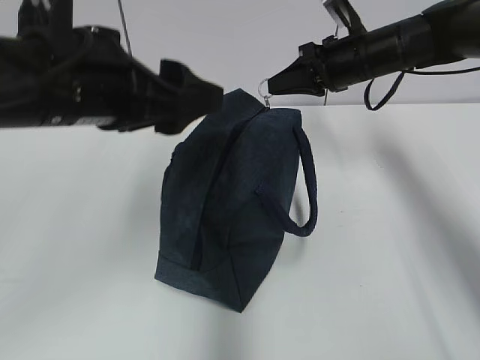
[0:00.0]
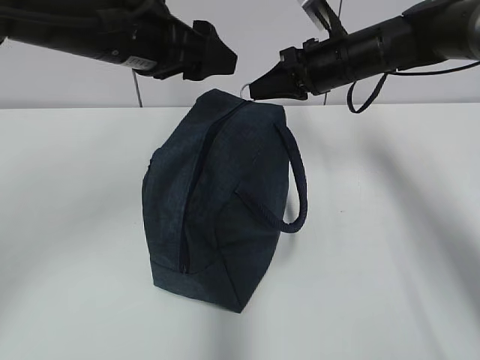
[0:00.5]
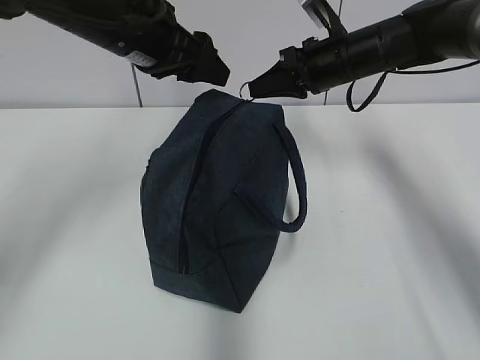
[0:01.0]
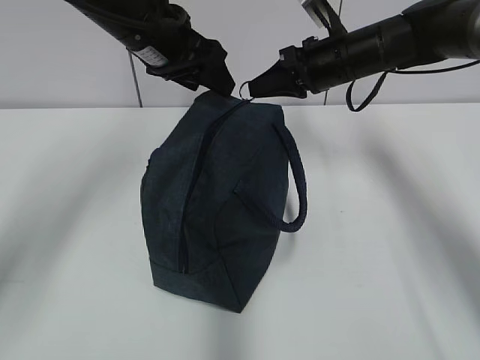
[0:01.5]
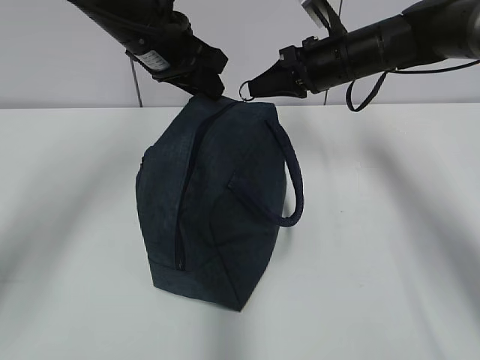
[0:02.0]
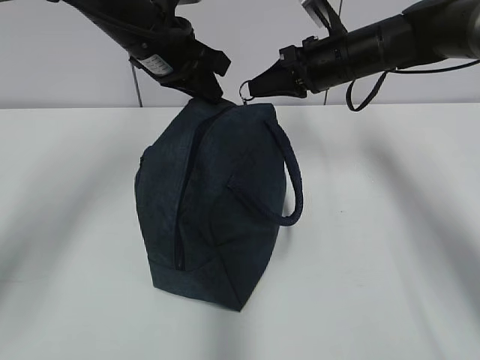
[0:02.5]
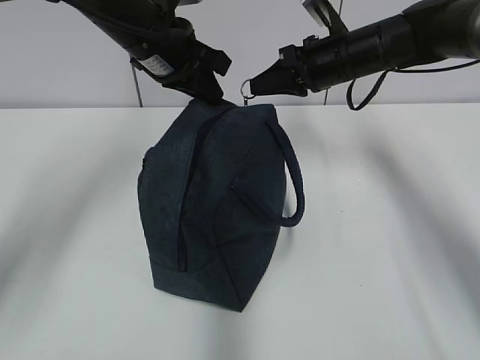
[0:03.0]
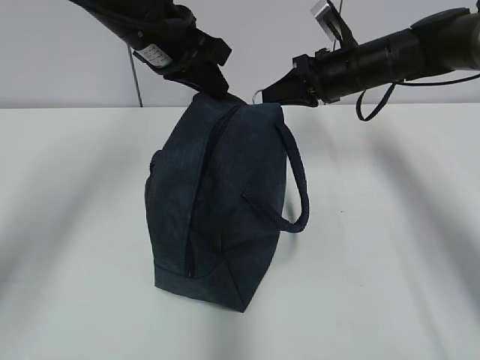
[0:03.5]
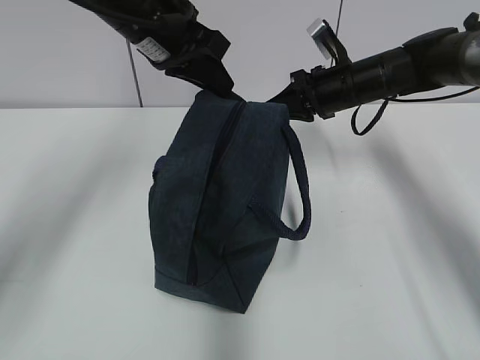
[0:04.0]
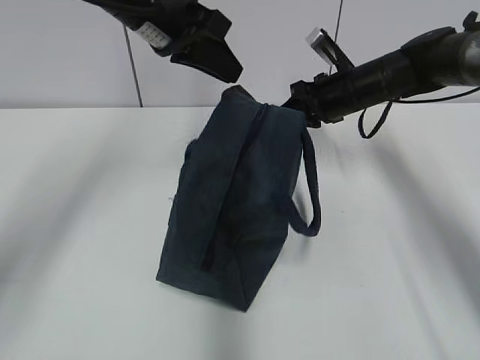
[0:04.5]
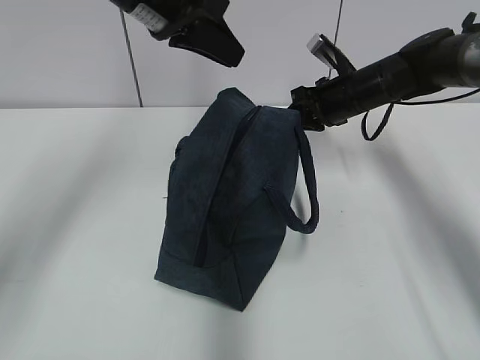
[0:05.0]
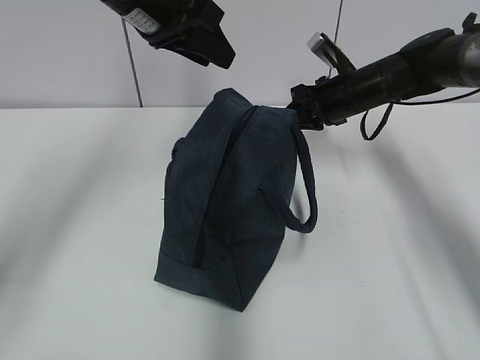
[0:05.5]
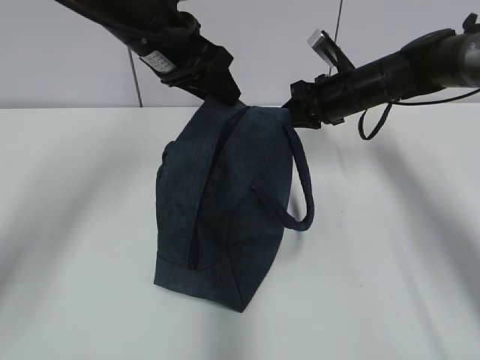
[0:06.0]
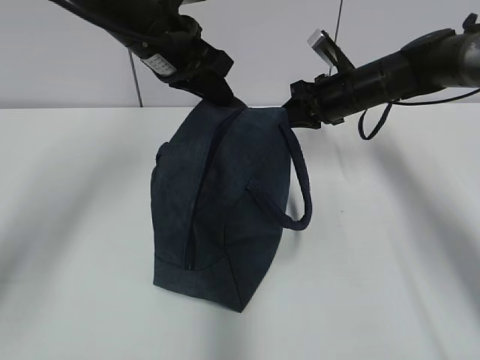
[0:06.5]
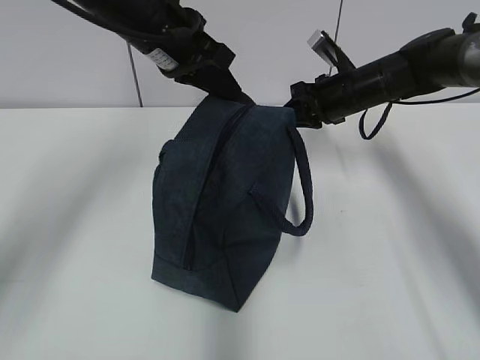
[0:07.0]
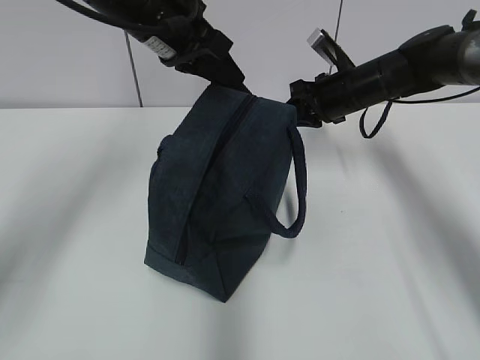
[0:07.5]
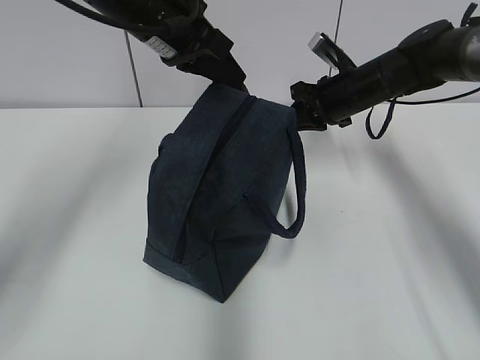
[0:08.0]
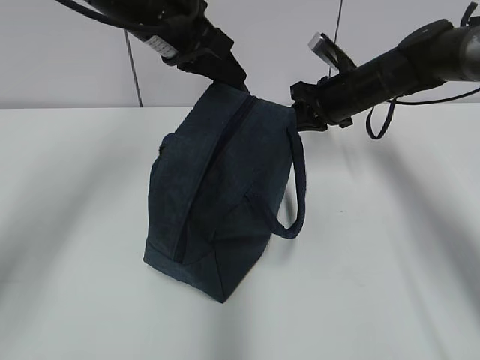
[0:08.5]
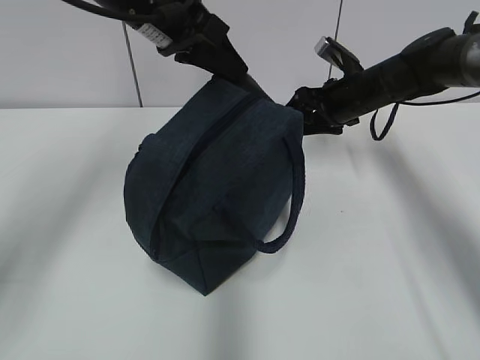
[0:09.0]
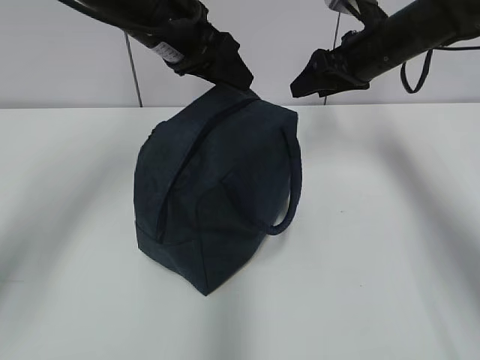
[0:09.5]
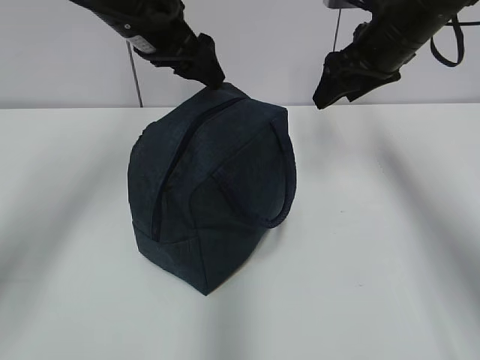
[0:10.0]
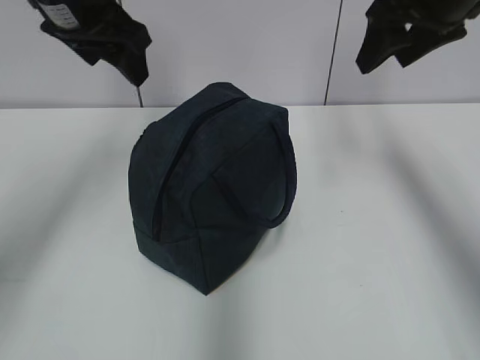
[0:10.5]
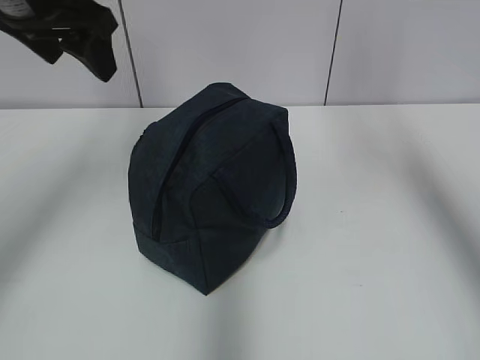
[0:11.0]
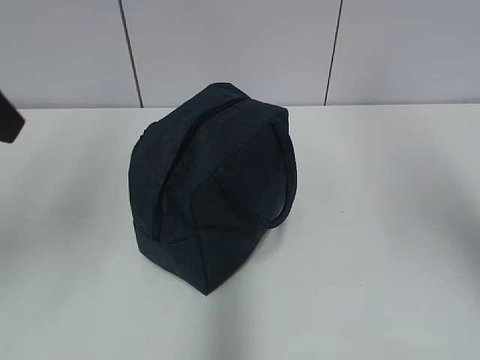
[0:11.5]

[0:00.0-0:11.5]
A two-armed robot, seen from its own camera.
Step, 0:00.0 to 0:04.0: Pull the zipper with your right hand.
Step, 0:04.5 to 0:09.5: Grab the lunch bag with your left hand.
0:00.0 to 0:02.0: The left gripper shifts about 20 cm forward, and closes up.
0:02.0 to 0:04.0: The left gripper closes its fingers. The right gripper shifts by about 5 cm.
0:04.0 to 0:06.0: The left gripper opens up.
0:06.0 to 0:07.5: The left gripper closes up.
0:07.5 to 0:09.5: The right gripper is displaced upward by roughly 10 cm, and opens up; the left gripper opens up.
0:09.5 to 0:11.5: The left gripper travels backward and to the left by about 25 cm, while the right gripper goes approximately 35 cm backward and upward.

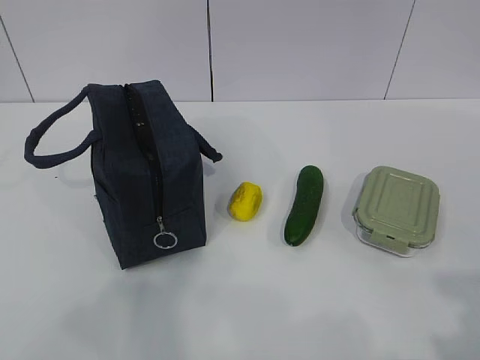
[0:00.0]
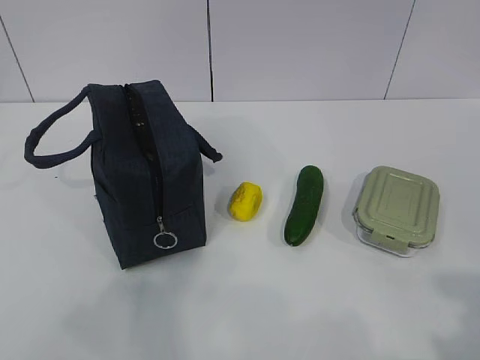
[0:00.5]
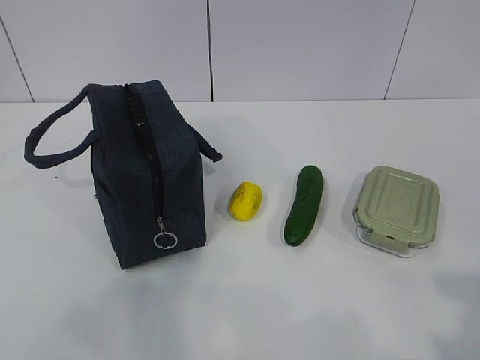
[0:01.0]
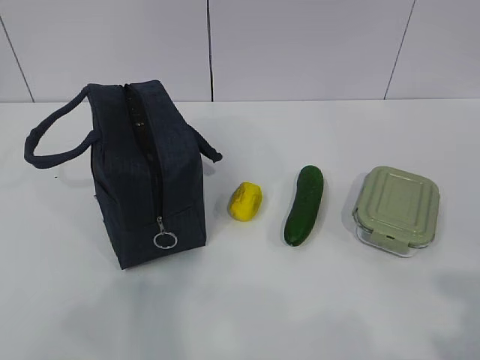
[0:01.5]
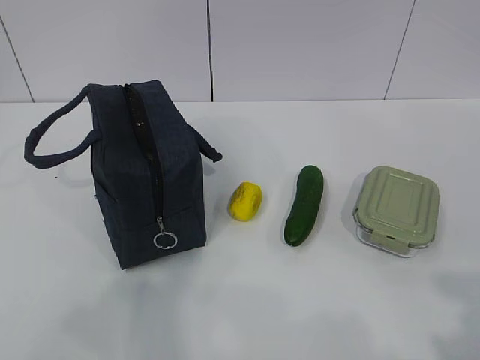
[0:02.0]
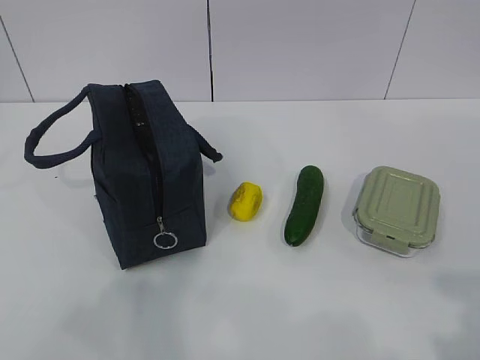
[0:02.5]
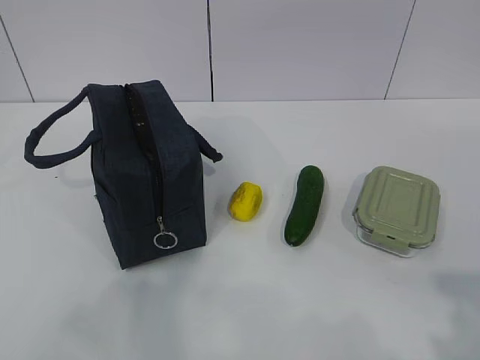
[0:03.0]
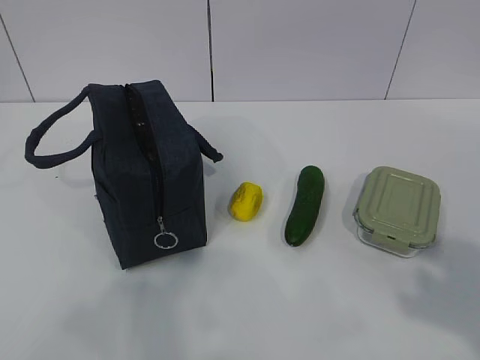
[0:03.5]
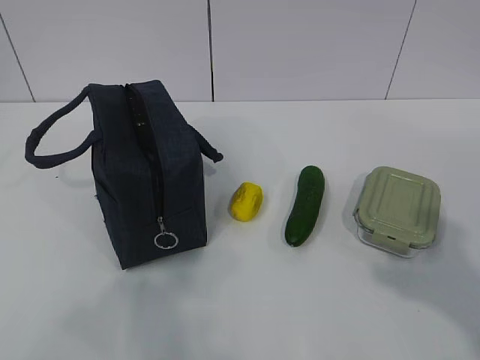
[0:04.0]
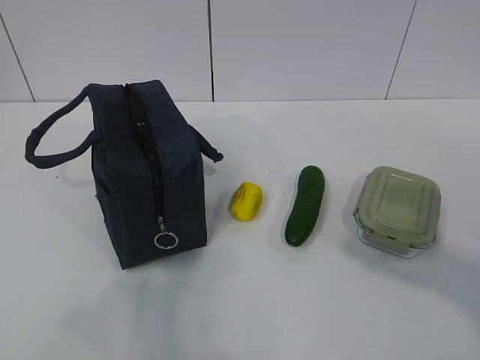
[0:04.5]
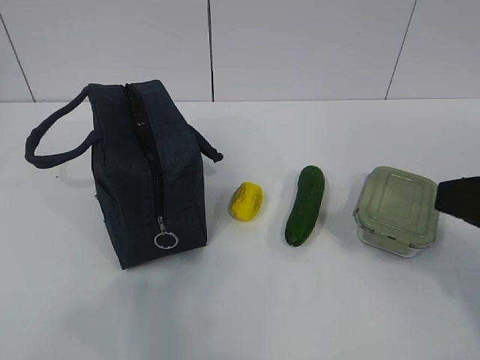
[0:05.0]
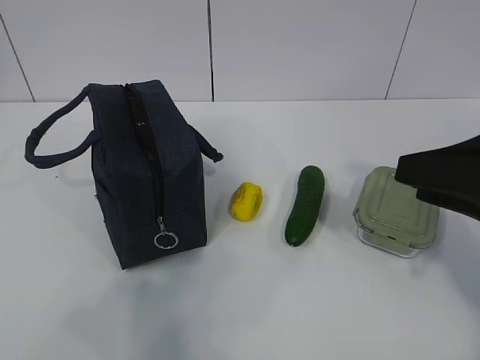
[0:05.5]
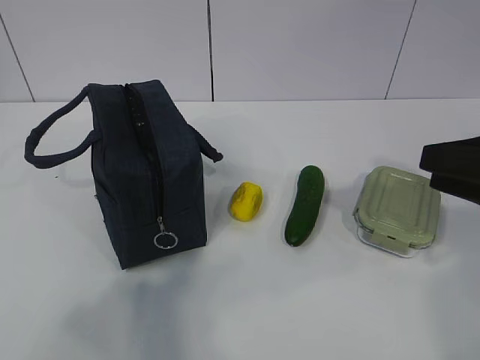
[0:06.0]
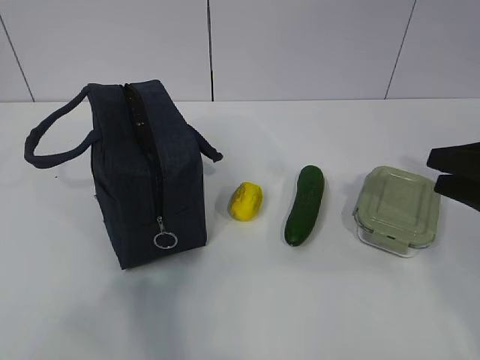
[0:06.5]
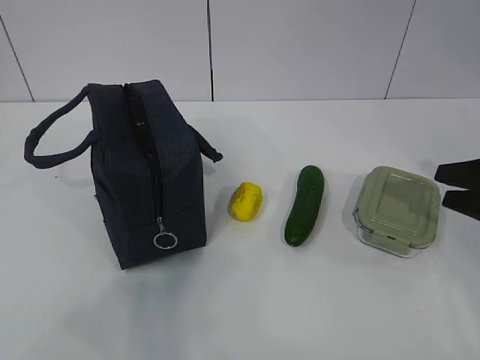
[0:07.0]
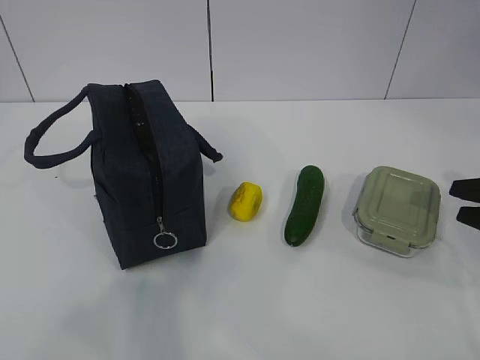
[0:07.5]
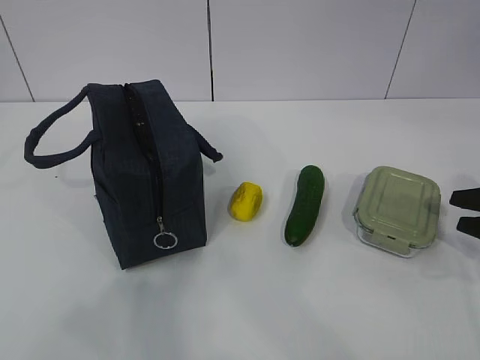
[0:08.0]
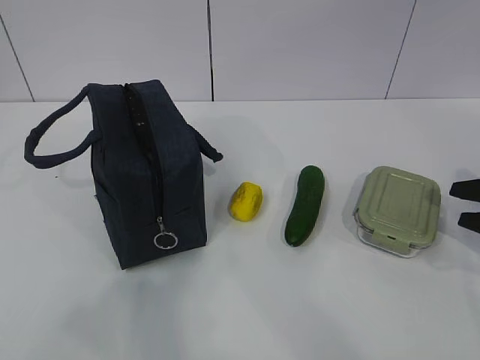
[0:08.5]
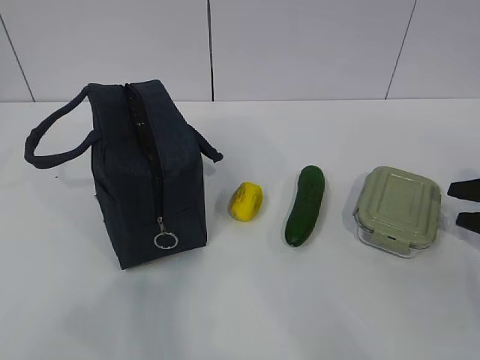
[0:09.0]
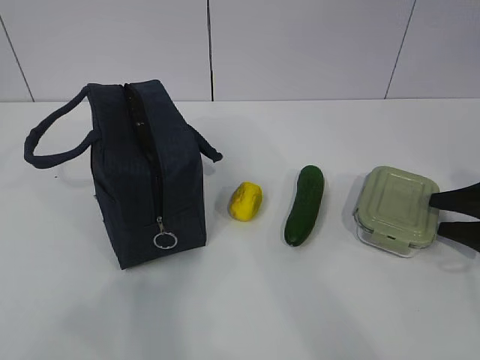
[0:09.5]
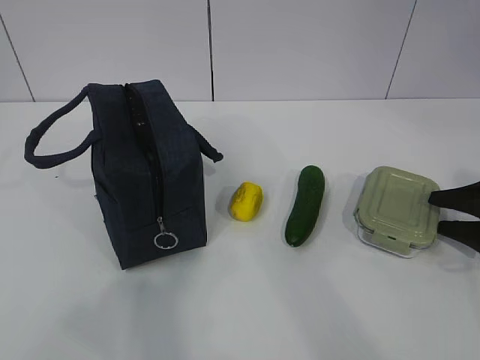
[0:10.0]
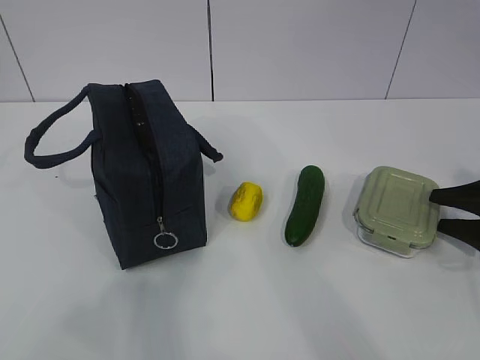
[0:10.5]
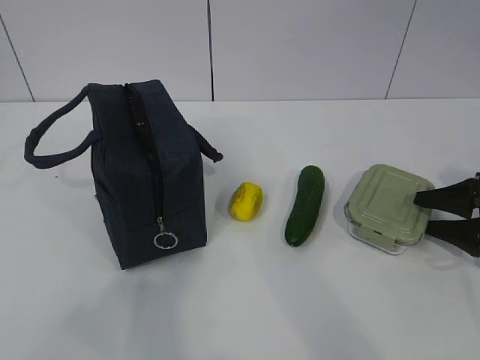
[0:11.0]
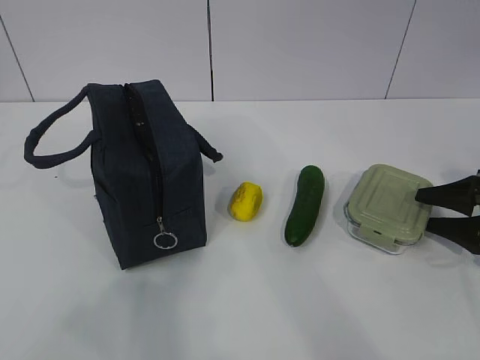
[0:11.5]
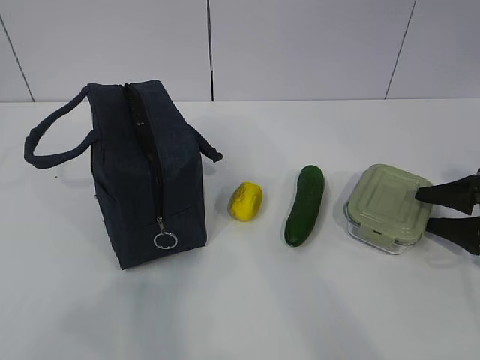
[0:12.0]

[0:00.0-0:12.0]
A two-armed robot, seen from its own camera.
0:02.0 to 0:04.0: The right gripper goes approximately 5 cm forward.
0:04.0 to 0:06.0: The right gripper goes roughly 15 cm forward.
0:06.0 to 0:08.0: The right gripper goes approximately 20 cm downward, to the right and forward.
0:08.0 to 0:10.0: The right gripper ends up some 5 cm from where it was.
0:10.0 to 0:12.0: There are only small adjustments of the grippers.

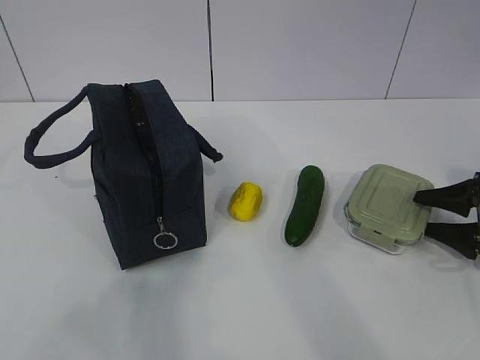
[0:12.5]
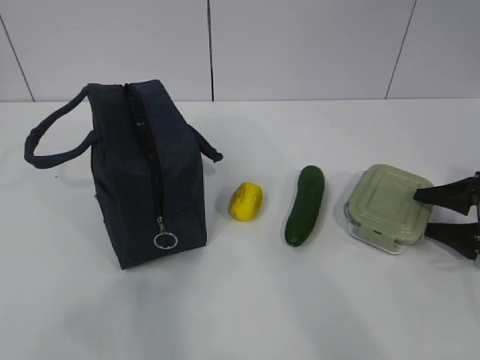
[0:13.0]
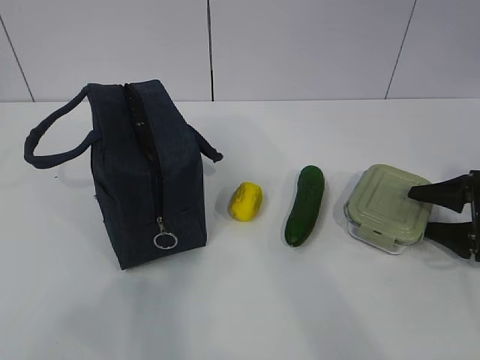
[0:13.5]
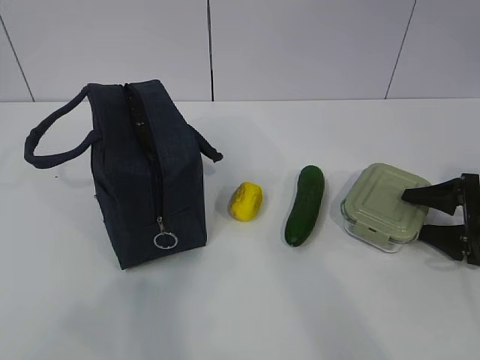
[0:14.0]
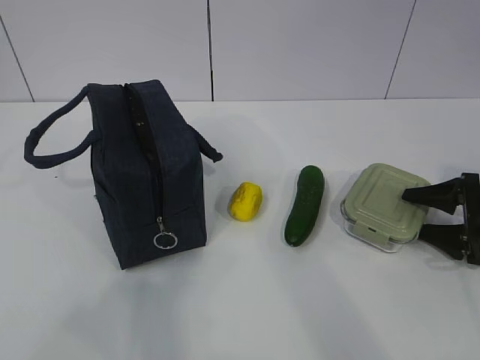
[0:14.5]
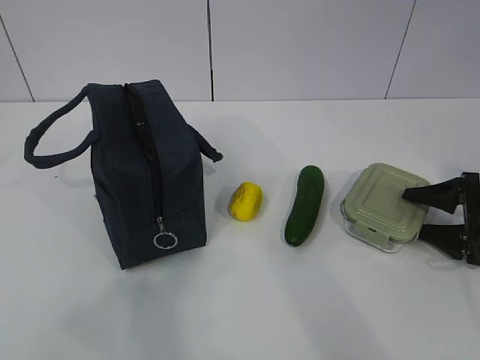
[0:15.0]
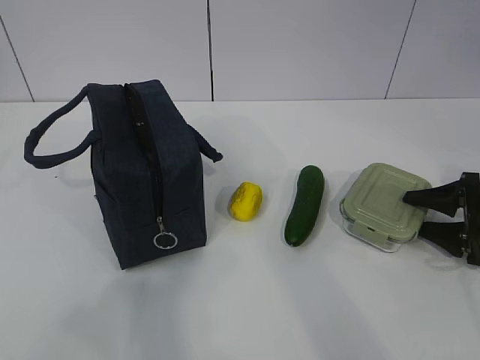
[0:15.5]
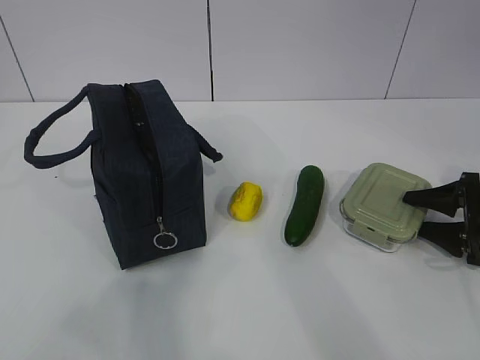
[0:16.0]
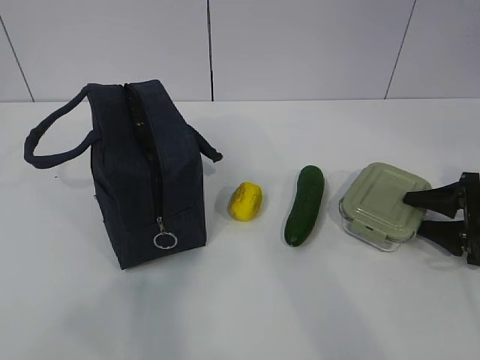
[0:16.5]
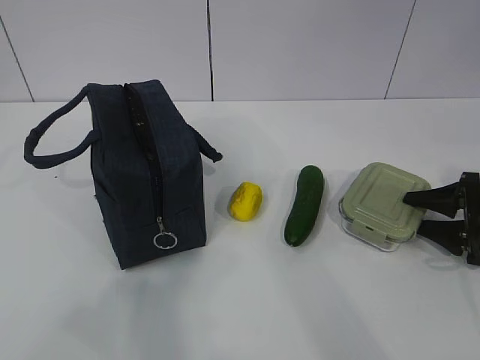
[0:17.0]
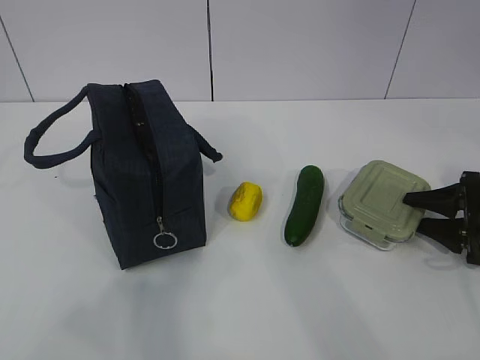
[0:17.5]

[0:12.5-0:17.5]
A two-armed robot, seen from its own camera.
Step, 0:12.5 to 0:17.5: Grab the lunch box with your right hand.
0:12.5 to 0:15.0: There are only small adjustments of the grippers.
0:15.0 to 0:17.5: The two grippers keep their place.
